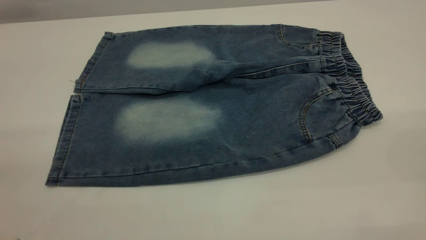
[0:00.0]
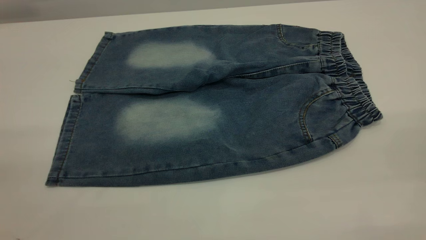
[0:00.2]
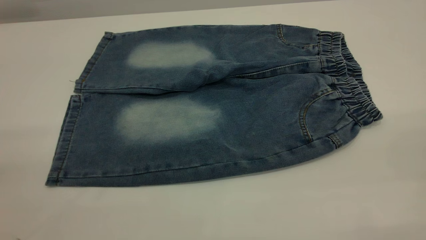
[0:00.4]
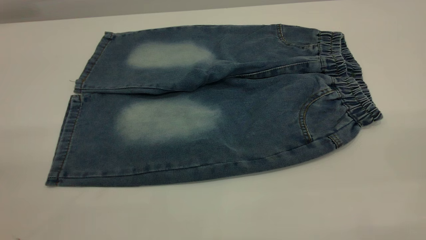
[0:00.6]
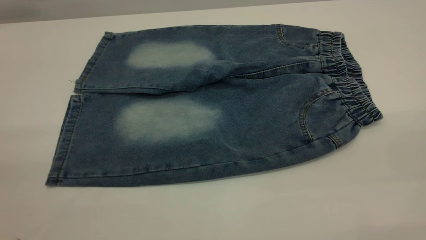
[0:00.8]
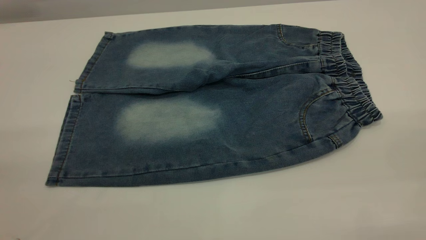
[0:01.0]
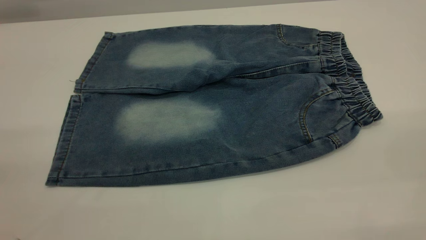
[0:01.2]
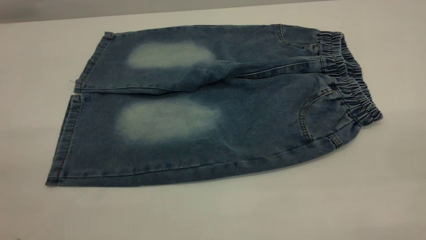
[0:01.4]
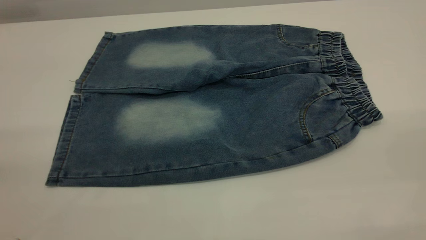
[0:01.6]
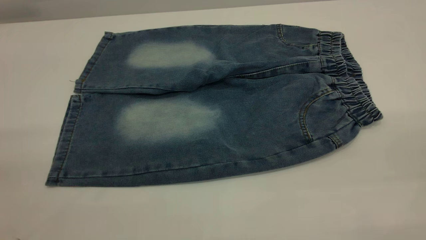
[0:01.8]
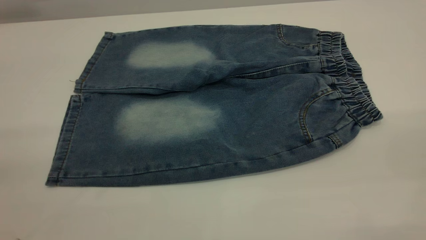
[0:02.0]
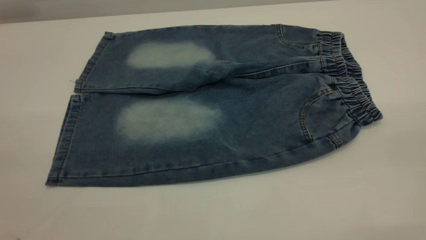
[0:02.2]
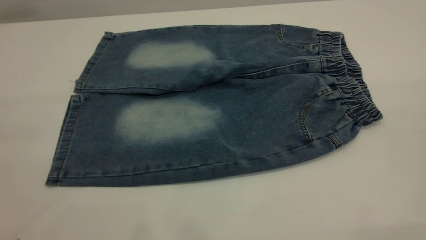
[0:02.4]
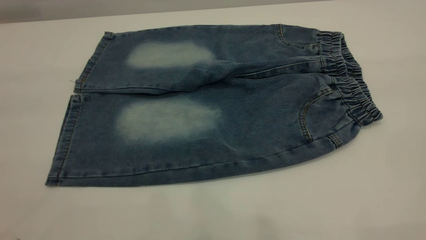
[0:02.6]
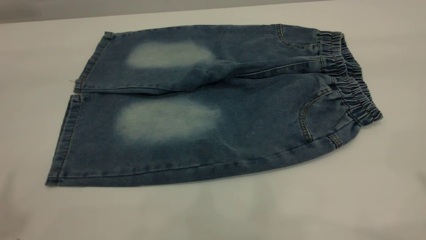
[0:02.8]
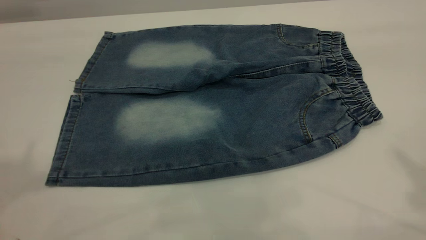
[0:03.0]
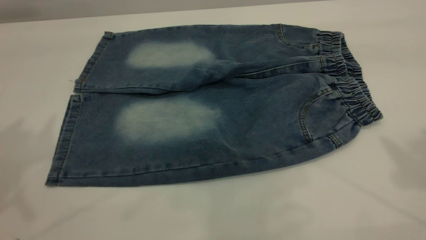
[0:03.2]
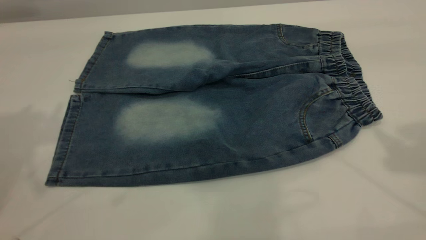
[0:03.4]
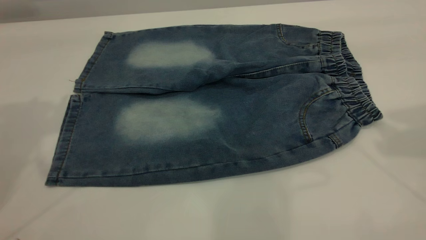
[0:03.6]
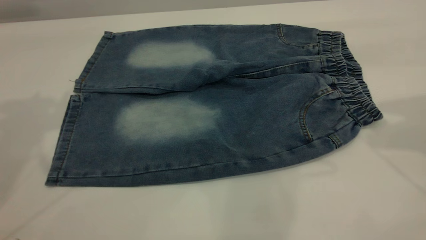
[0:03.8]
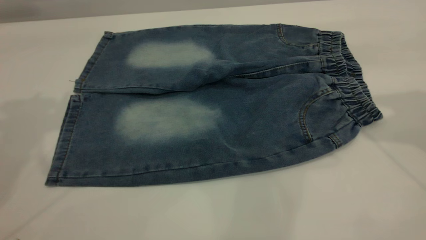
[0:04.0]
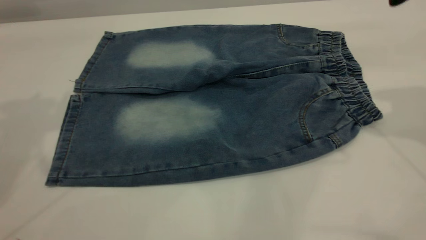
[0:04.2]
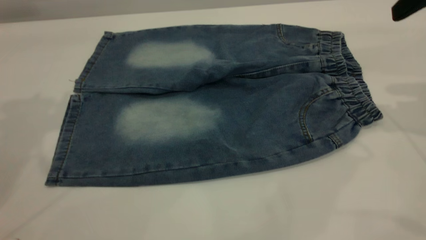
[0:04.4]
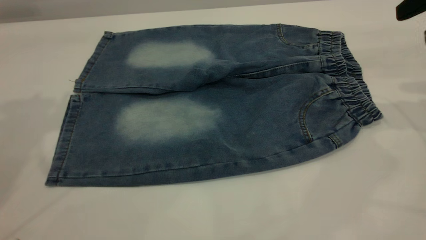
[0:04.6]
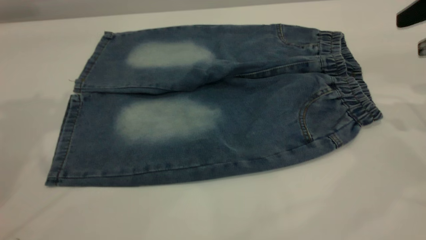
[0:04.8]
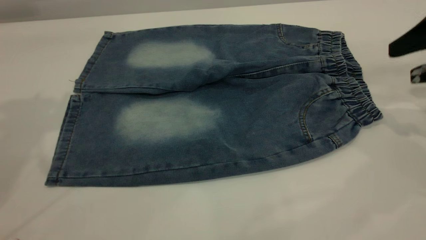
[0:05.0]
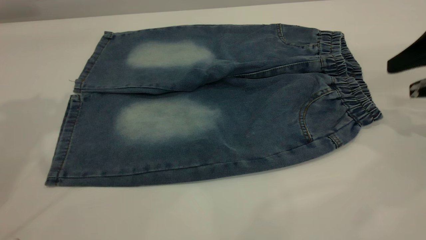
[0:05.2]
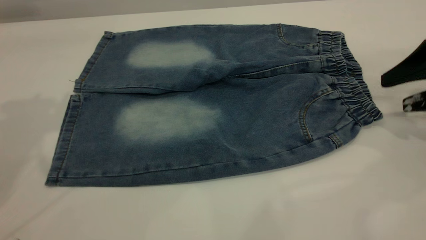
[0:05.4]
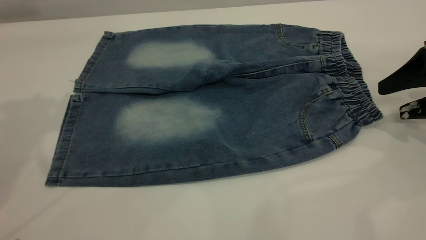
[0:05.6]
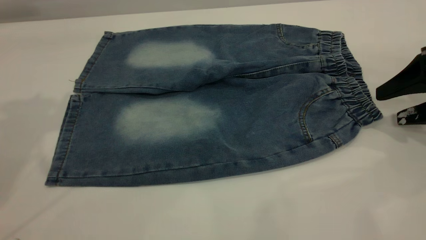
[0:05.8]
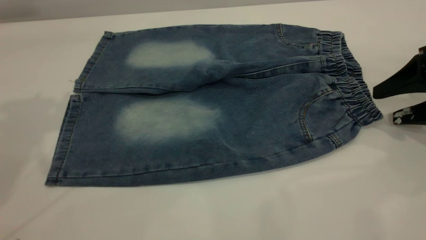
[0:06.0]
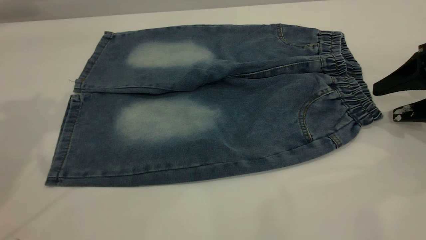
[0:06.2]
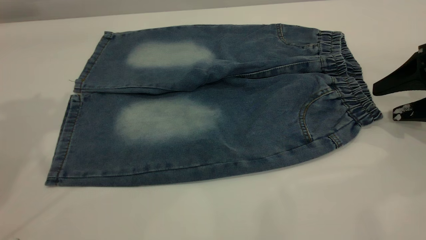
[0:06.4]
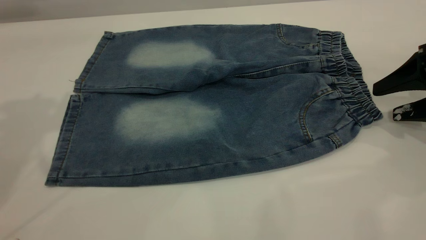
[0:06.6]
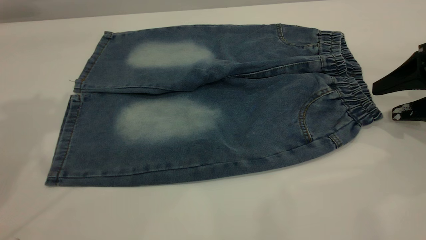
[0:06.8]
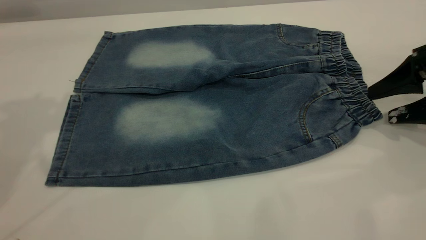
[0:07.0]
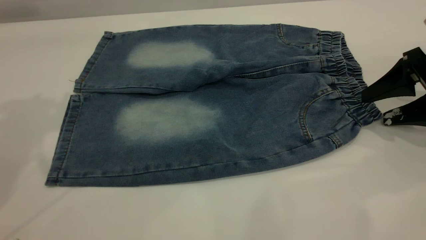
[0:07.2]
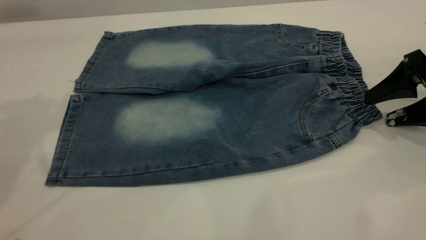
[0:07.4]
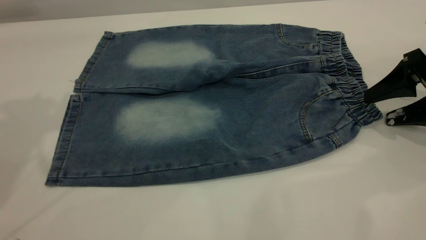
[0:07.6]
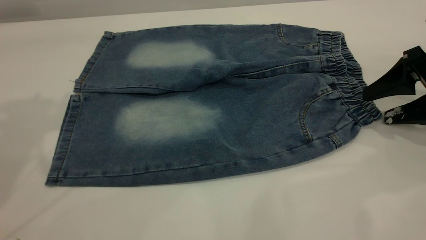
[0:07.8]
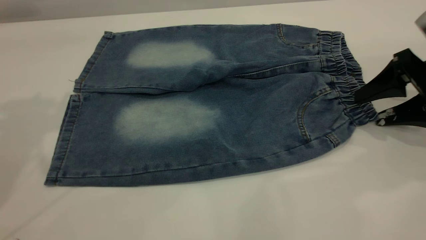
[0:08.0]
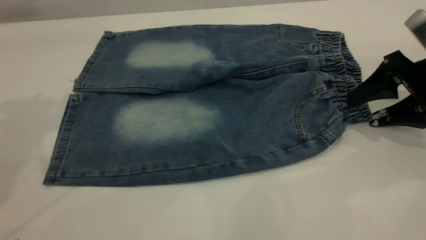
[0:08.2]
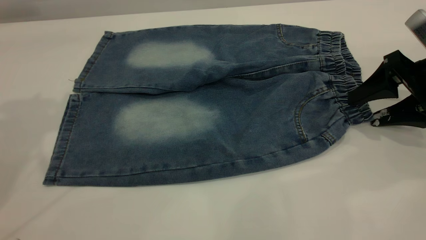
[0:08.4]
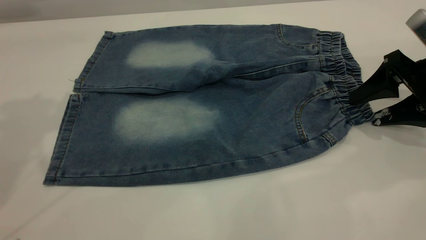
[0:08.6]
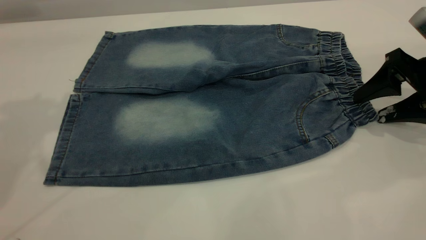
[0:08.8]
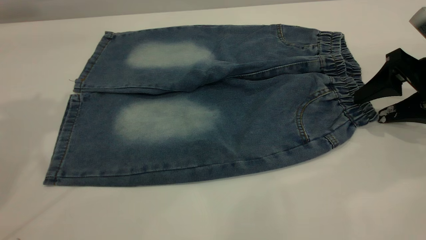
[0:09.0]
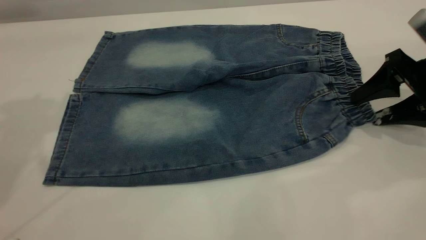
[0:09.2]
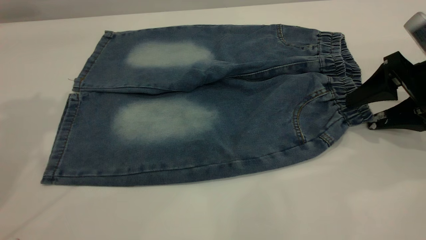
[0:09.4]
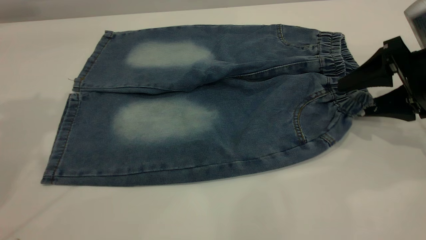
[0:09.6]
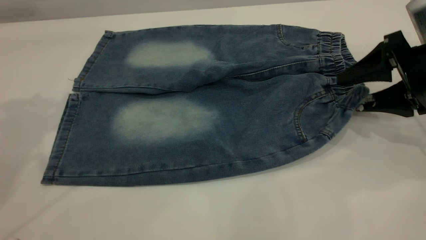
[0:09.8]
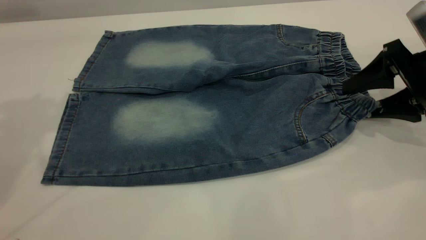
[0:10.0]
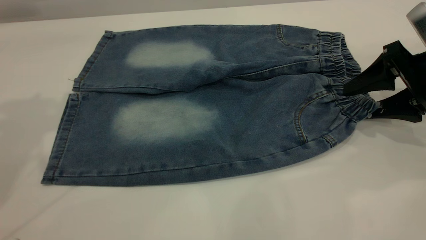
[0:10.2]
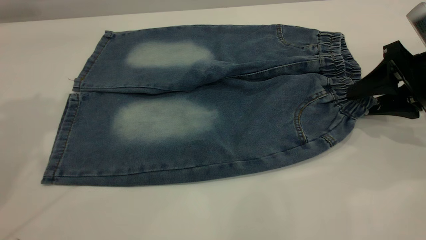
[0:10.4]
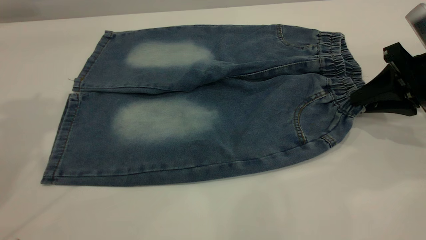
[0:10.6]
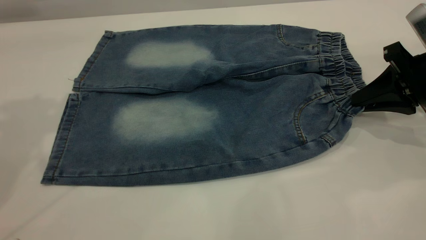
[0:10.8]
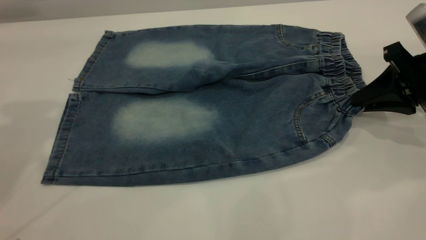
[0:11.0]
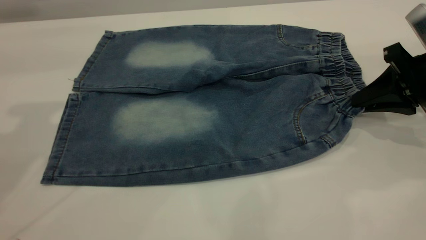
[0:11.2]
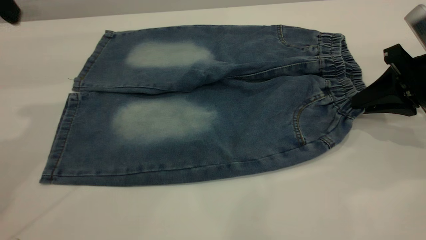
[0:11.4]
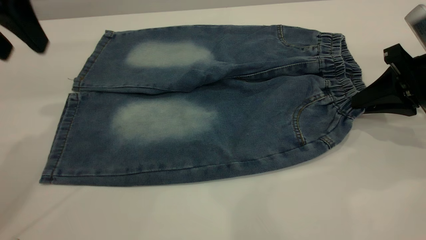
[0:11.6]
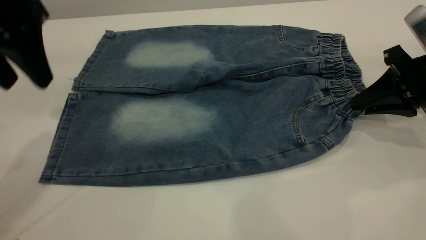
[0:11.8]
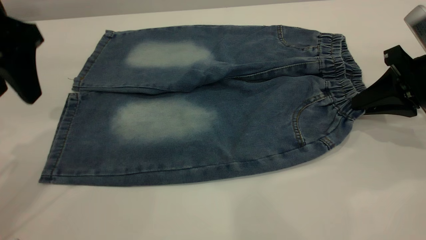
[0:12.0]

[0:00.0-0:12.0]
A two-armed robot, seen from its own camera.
0:00.0 to 0:01.6: Neither gripper changes place.
0:03.0 to 0:04.4: The right gripper moves downward and forward, approximately 20 cm.
0:04.4 to 0:06.0: The right gripper travels downward by about 15 cm.
0:06.0 to 0:09.0: There are only small adjustments of the grippers.
0:09.0 to 0:10.4: The right gripper closes its fingers.
0:10.4 to 0:12.0: The right gripper closes up. Meanwhile the left gripper is displaced downward by roughly 15 cm.

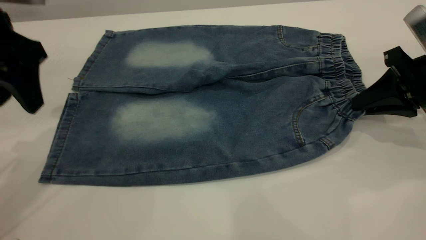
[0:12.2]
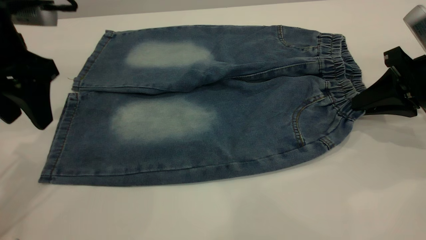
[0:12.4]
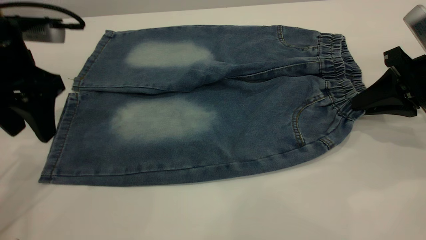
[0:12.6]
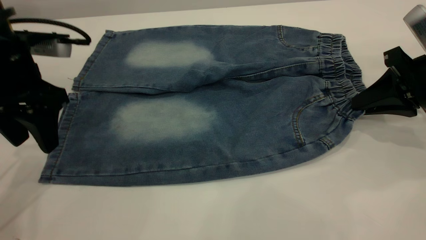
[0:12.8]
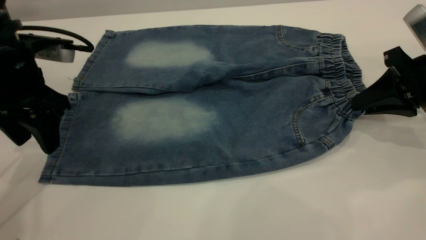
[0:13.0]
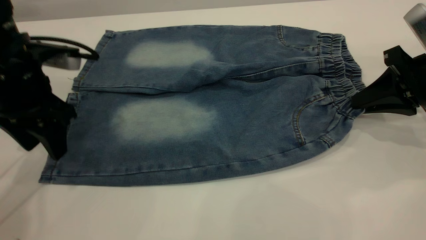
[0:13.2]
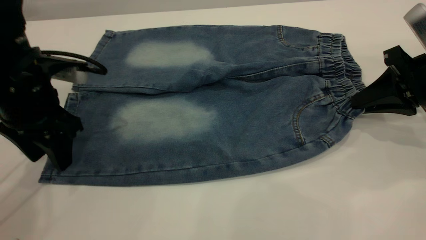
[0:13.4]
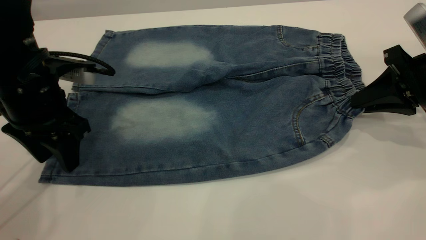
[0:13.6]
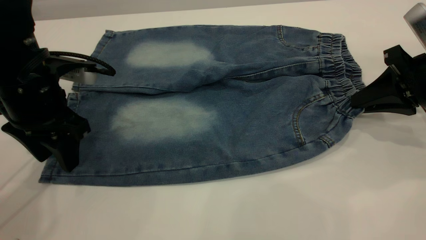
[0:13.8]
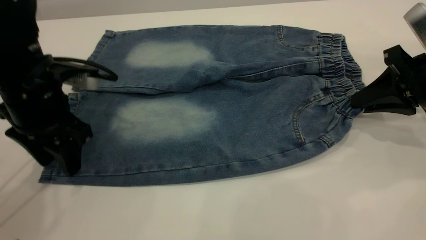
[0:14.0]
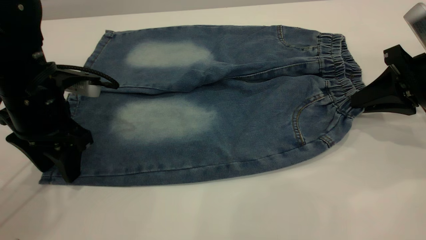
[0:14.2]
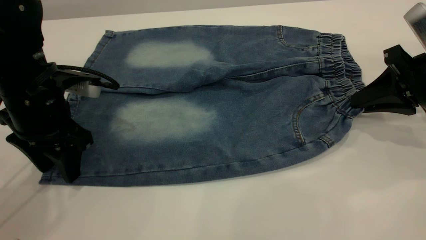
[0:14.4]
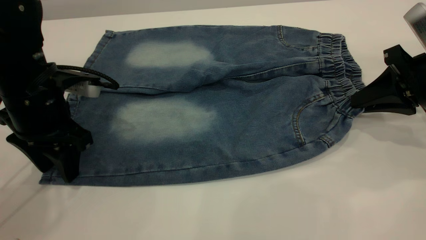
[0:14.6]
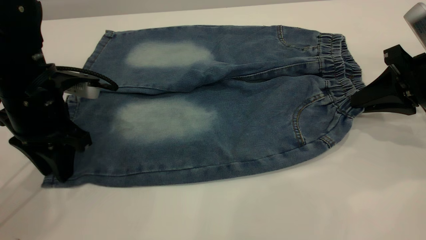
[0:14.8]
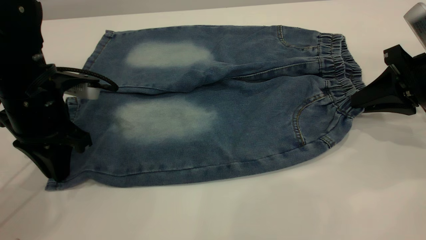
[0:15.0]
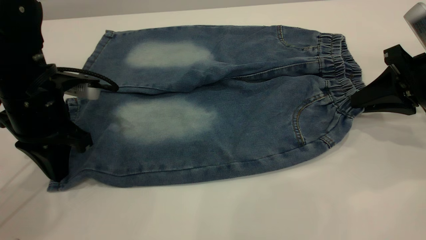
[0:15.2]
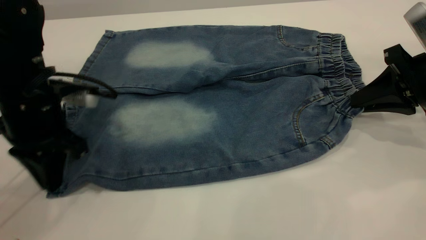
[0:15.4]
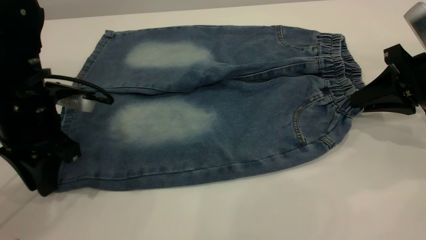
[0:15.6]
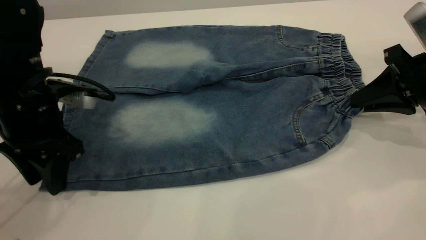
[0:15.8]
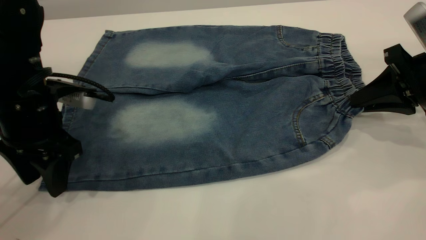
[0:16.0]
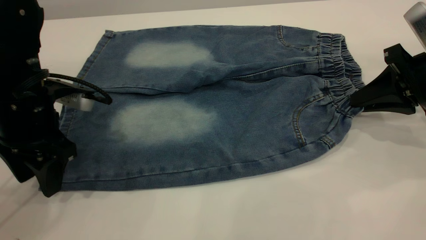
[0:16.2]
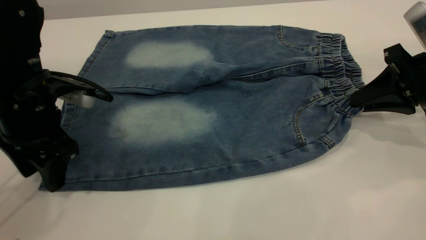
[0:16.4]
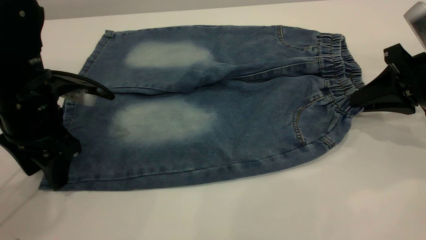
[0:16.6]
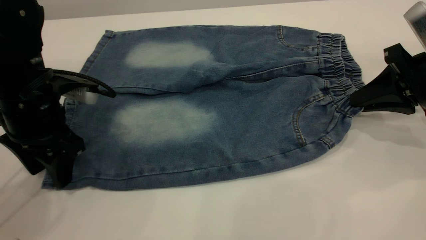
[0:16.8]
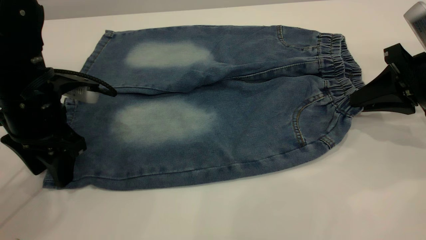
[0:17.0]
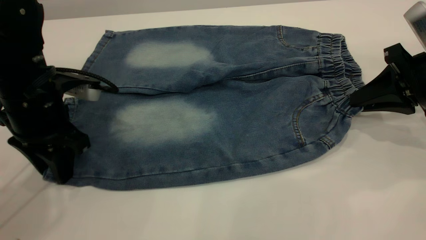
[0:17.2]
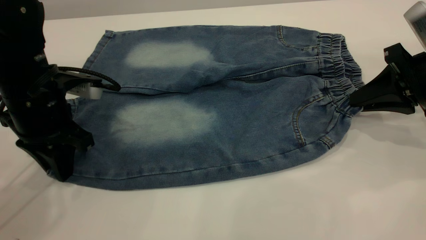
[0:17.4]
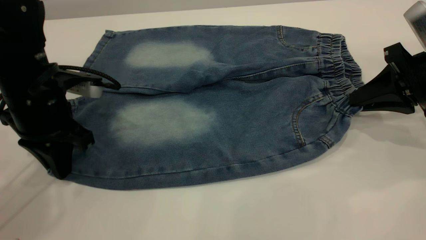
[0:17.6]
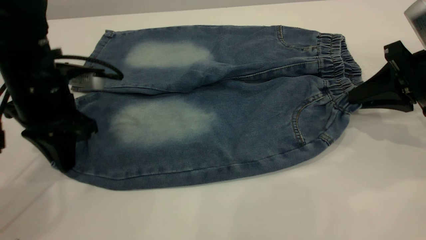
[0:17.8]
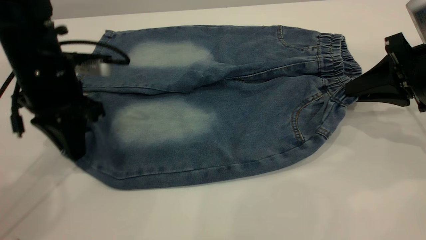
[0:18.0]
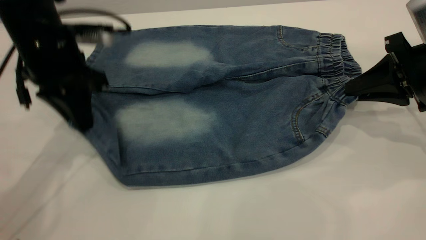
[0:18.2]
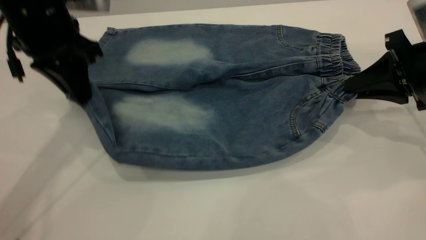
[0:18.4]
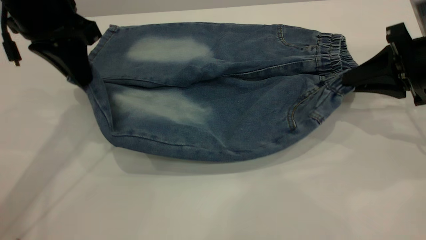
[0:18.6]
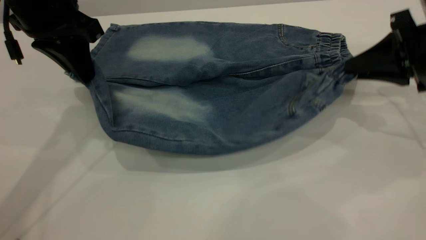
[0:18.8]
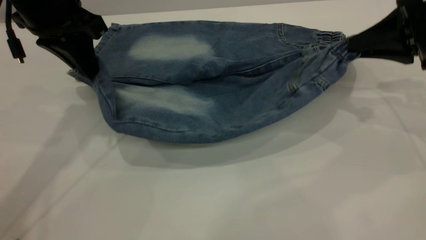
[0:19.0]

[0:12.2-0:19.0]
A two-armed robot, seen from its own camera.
0:12.2 to 0:13.6: The left gripper travels downward by roughly 10 cm.
0:13.6 to 0:15.0: The left gripper closes.
0:15.0 to 0:16.2: The left gripper opens up.
0:16.2 to 0:17.6: The left gripper closes up.
0:17.6 to 0:19.0: The right gripper travels upward by about 5 cm, while the left gripper is displaced upward and forward by roughly 10 cm.
